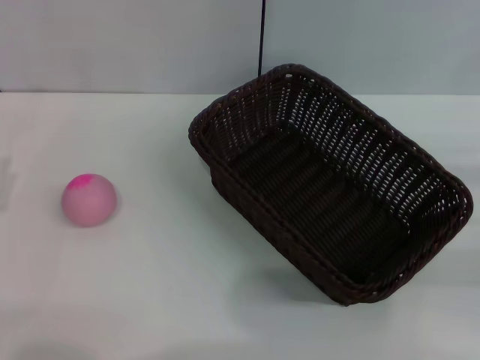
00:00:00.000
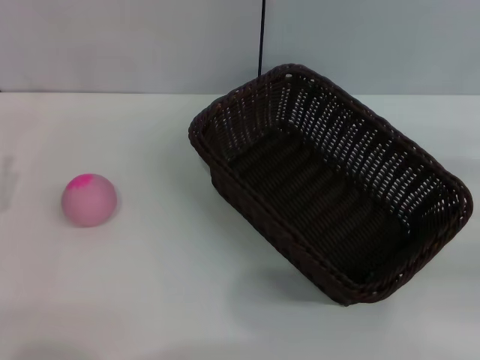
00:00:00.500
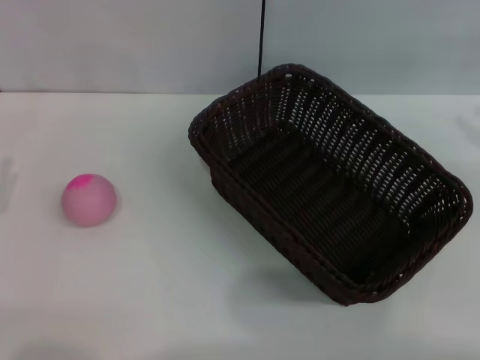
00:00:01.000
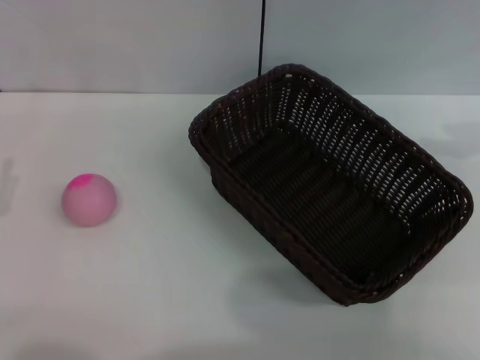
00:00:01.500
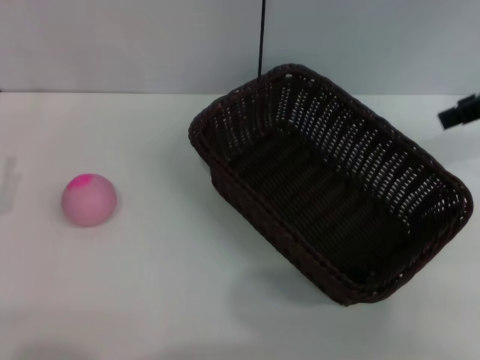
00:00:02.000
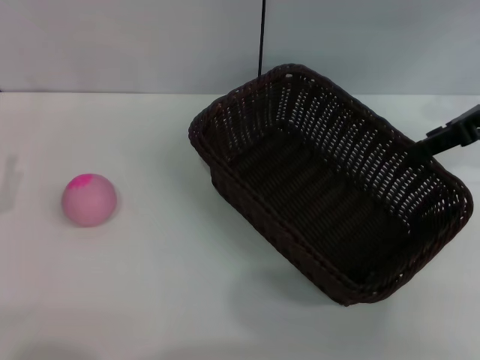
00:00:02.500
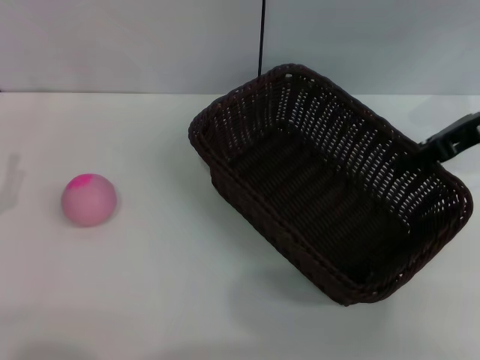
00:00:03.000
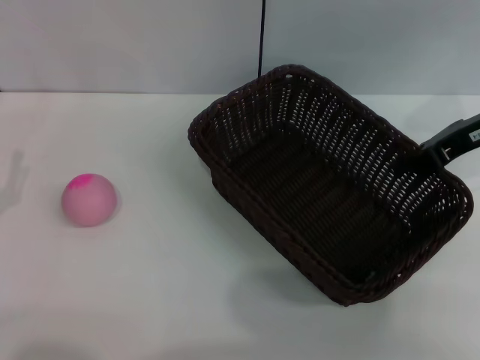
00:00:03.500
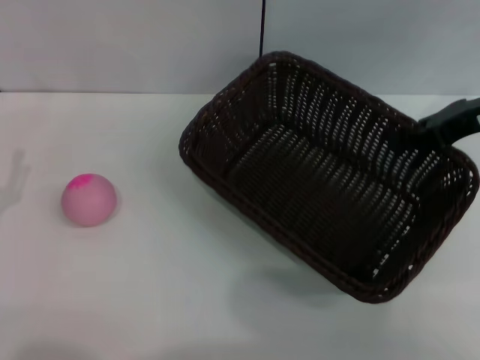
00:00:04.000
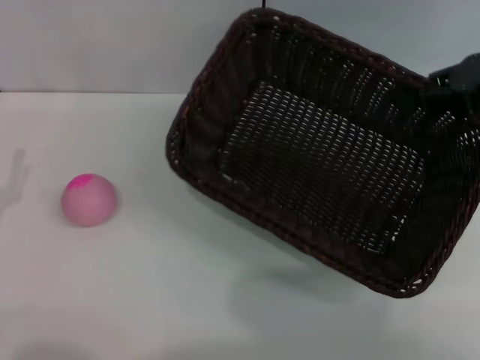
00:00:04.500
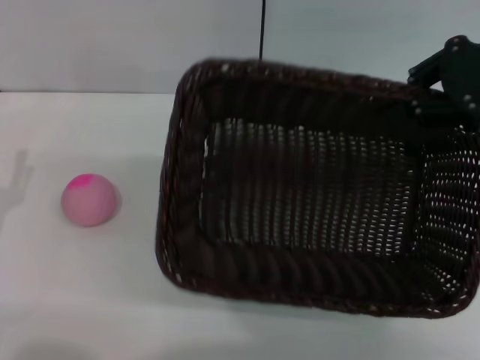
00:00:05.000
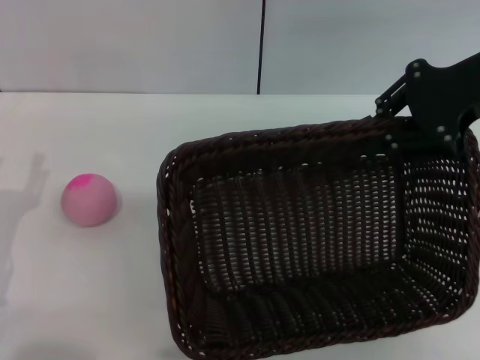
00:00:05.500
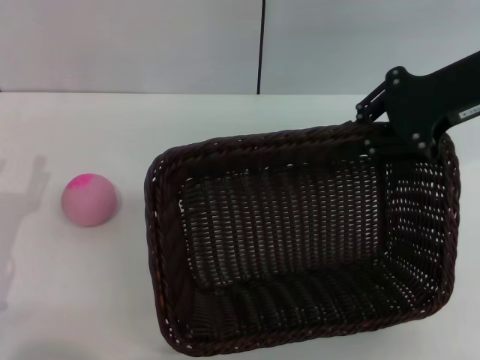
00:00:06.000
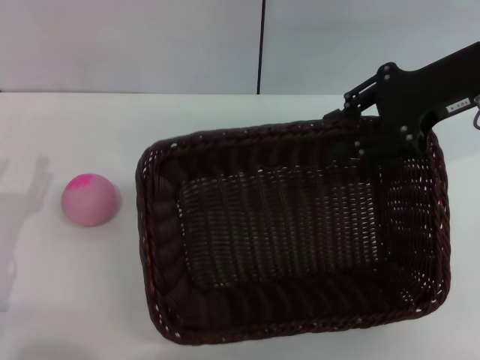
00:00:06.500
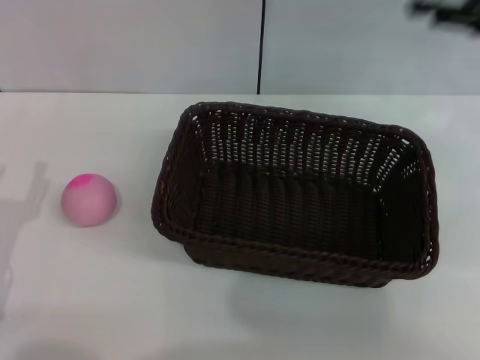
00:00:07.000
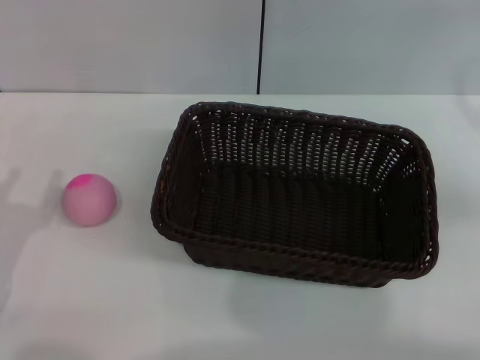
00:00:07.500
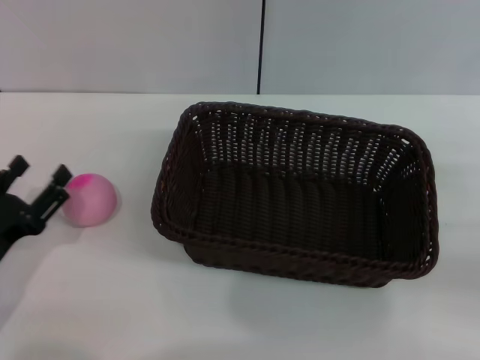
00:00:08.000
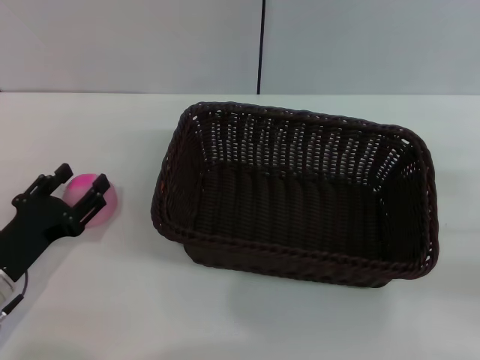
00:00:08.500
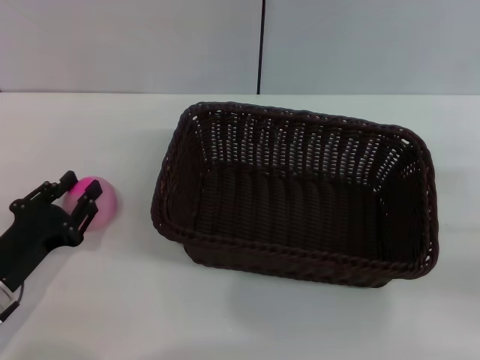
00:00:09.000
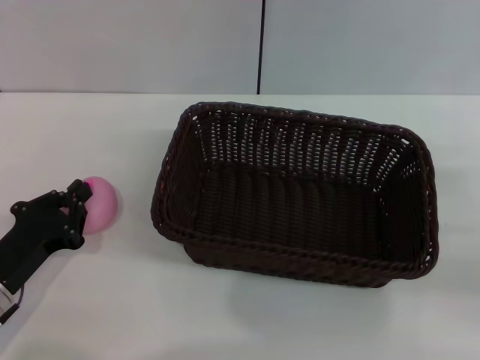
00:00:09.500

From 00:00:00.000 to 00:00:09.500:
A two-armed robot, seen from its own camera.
Step, from 00:00:00.000 to 00:00:04.000: Pick up the dark basket with the right gripper.
Step, from 00:00:04.500 to 00:00:06.500: Place the dark basket in the center of view with the right gripper.
From 00:00:00.000 to 00:00:02.000: The right gripper moves upward, forward and to the left, approximately 25 cm.
From 00:00:02.000 to 00:00:04.000: The right gripper moves downward, roughly 5 cm, and closes.
From 00:00:04.000 to 00:00:05.500: The right gripper is displaced upward by roughly 5 cm.
From 00:00:05.500 to 00:00:07.500: The right gripper heads to the right, downward and backward, covering some 15 cm, and opens its fingers.
From 00:00:07.500 to 00:00:09.500: The left gripper closes up. Meanwhile the right gripper shifts approximately 10 cm downward and backward.

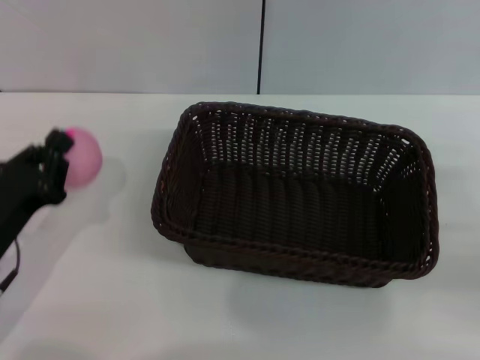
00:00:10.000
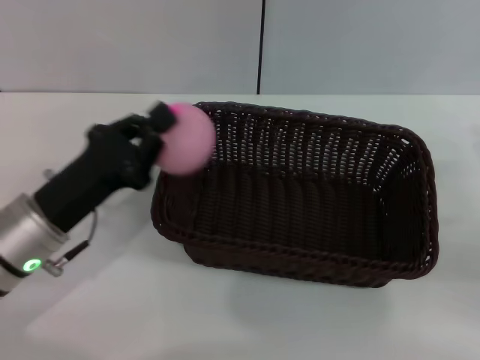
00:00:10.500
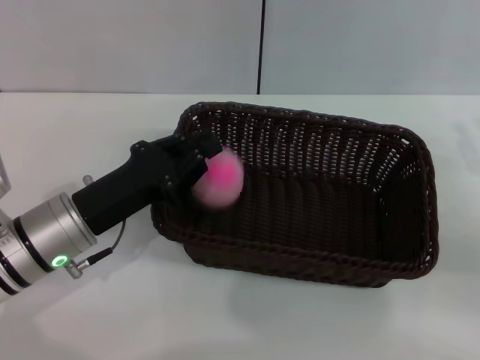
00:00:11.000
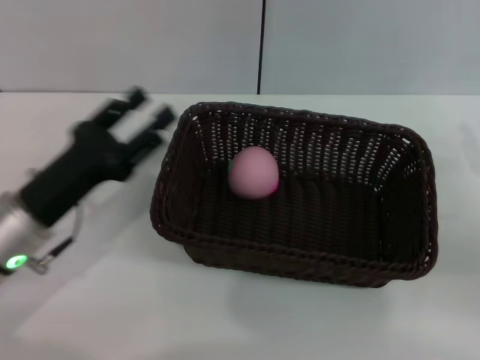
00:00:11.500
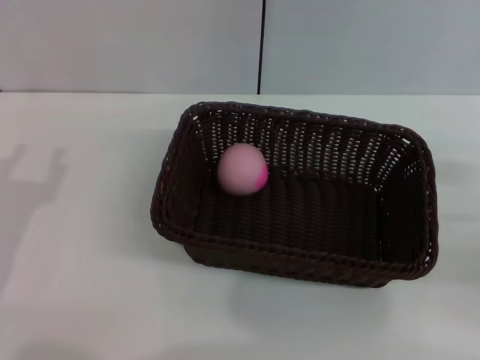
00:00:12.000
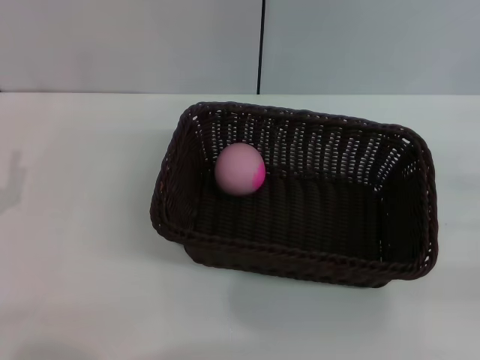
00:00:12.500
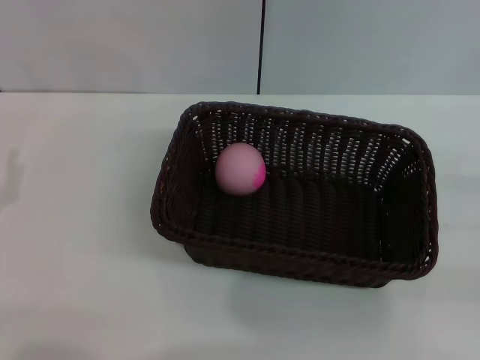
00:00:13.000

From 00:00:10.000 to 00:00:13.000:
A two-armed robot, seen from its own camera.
Step, from 00:00:10.500 to 00:00:11.500: Place the peach into the basket with the left gripper.
From 00:00:10.000 to 00:00:11.500: The left gripper changes place by about 5 cm, and opens up.
From 00:00:11.500 to 00:00:13.000: The left gripper goes some 10 cm to the left and backward; the right gripper goes roughly 5 cm to the right.
